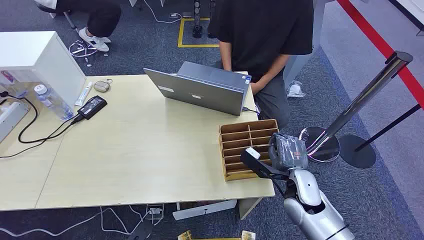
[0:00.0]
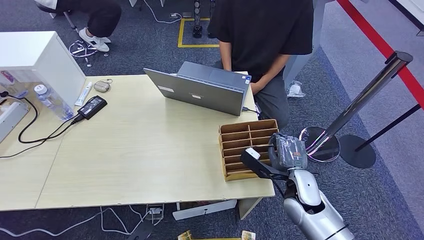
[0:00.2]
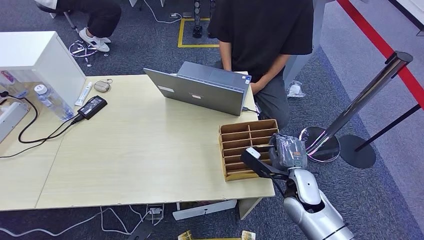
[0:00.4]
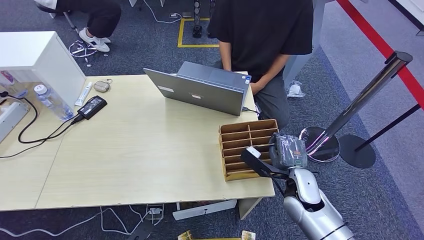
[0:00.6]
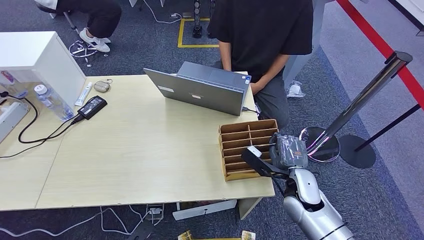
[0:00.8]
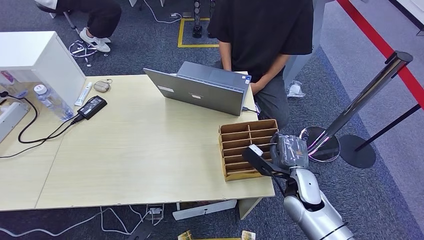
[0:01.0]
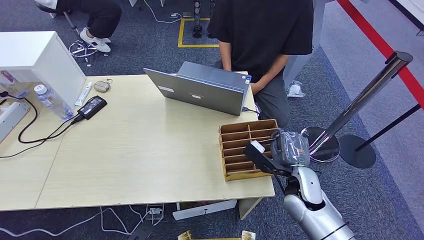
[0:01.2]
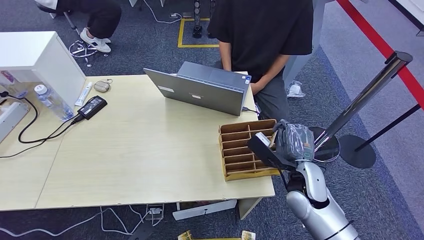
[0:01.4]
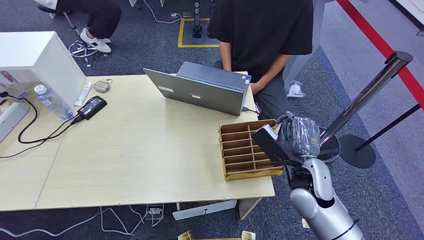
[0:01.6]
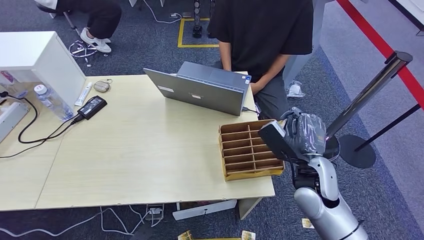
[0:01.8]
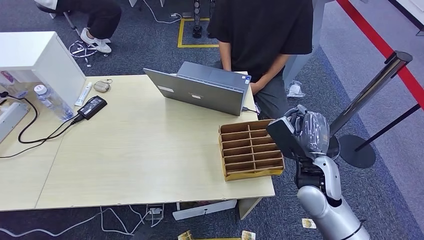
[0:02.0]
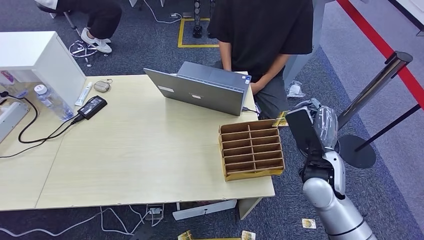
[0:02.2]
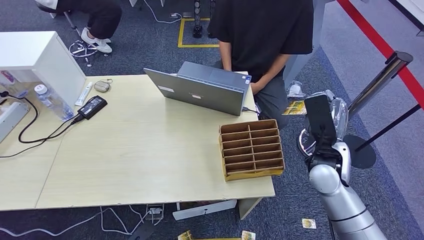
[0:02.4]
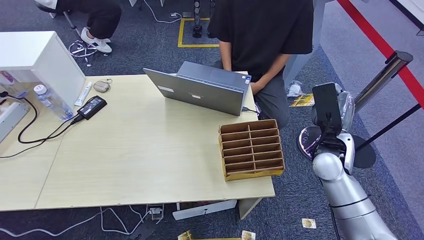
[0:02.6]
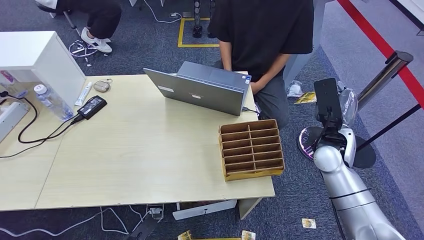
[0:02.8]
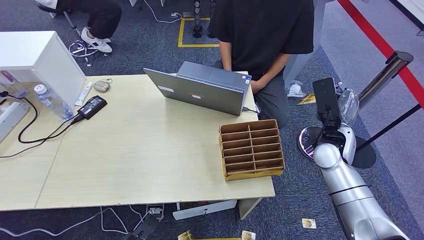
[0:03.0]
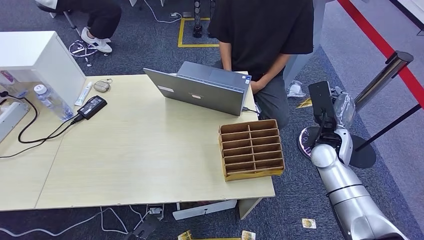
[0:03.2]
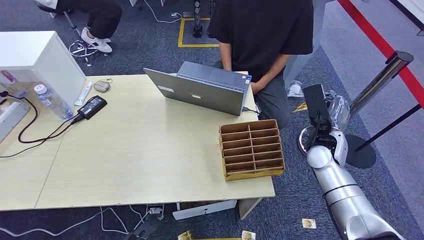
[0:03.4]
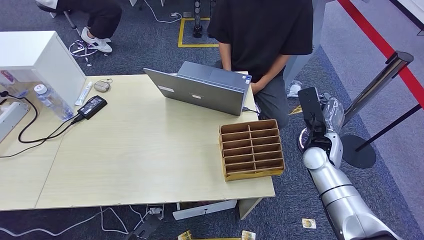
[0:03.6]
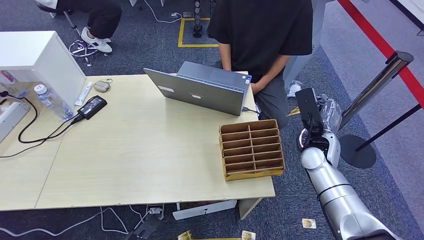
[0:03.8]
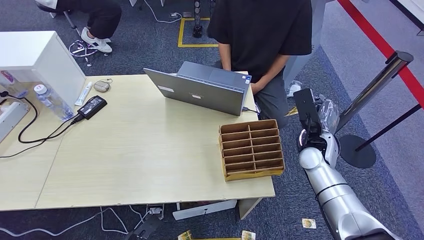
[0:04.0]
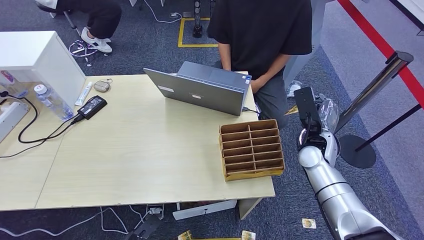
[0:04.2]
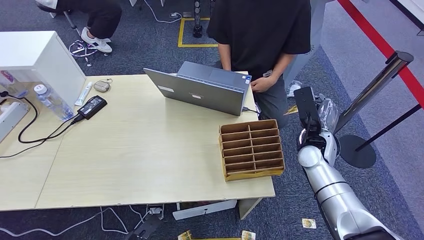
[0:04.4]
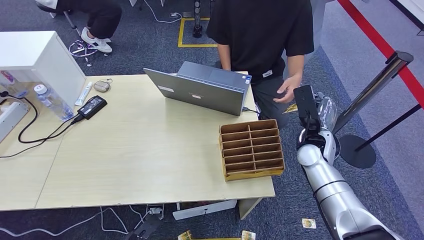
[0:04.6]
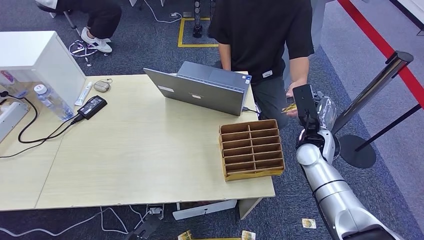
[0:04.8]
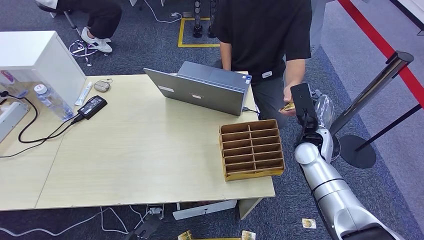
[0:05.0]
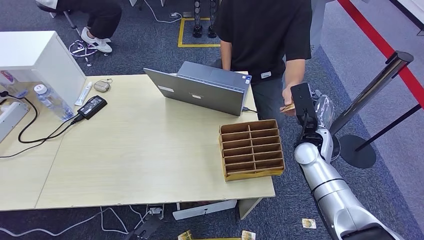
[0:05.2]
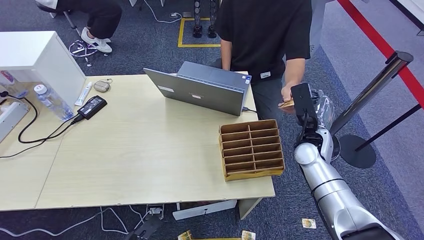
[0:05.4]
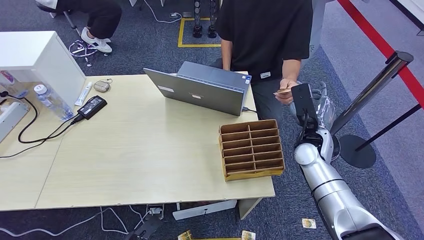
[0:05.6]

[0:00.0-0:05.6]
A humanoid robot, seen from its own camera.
Step, 0:00.0 to 0:03.0: Pick up the key card from the card box.
Step, 0:03.2 to 0:05.6: Hand the key card to the target.
0:01.4 to 0:02.8: The right hand goes about 10 cm forward, to the right and upward.
0:02.8 to 0:04.2: The right hand goes roughly 5 cm downward.
0:04.2 to 0:05.6: The hands move only a little.

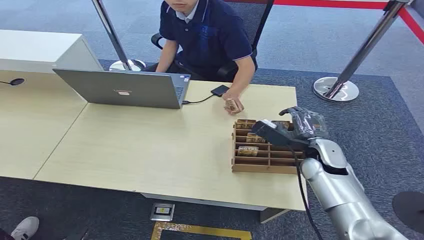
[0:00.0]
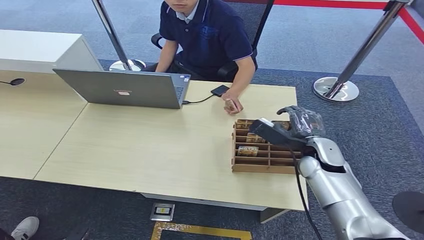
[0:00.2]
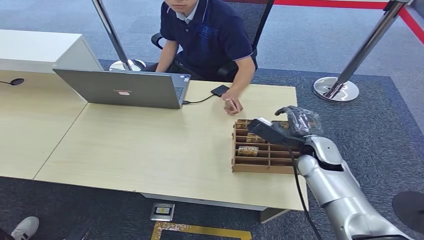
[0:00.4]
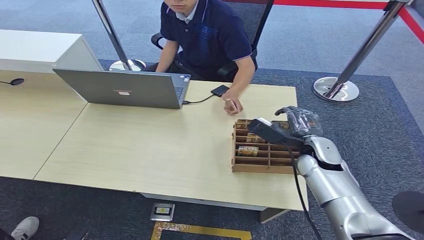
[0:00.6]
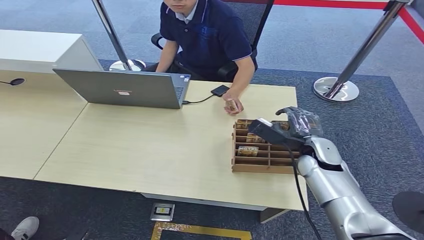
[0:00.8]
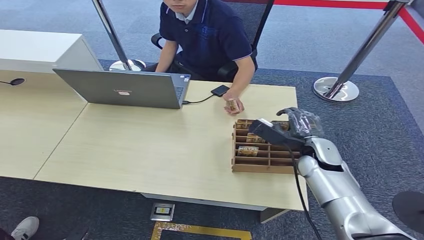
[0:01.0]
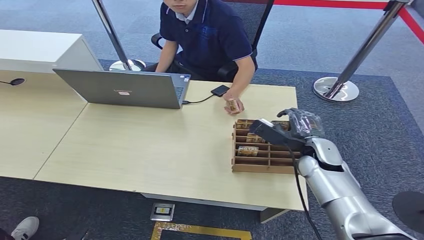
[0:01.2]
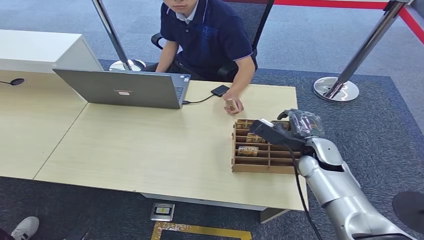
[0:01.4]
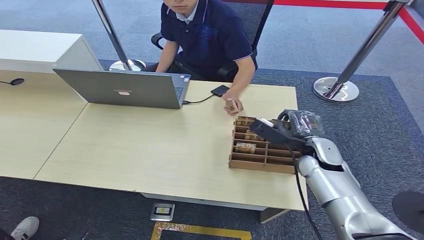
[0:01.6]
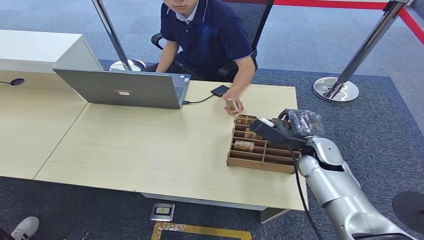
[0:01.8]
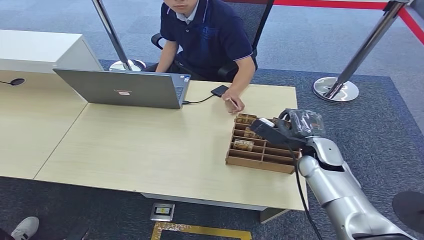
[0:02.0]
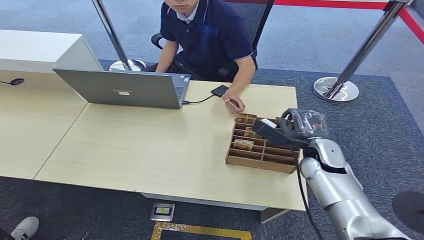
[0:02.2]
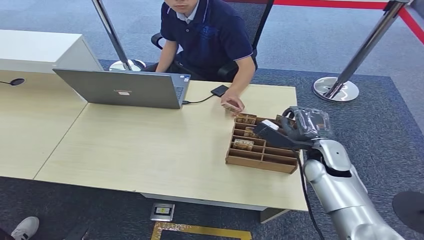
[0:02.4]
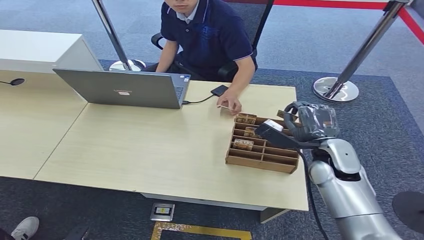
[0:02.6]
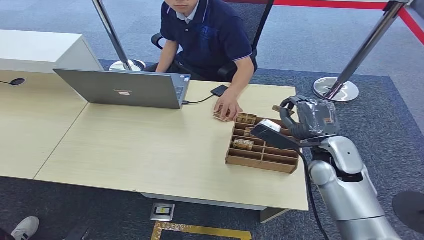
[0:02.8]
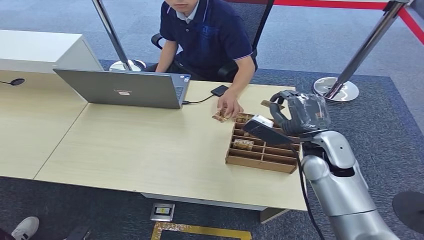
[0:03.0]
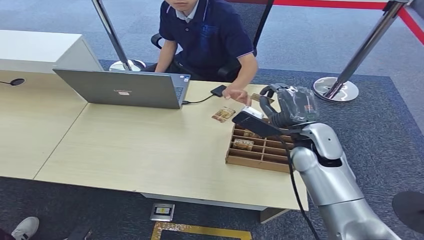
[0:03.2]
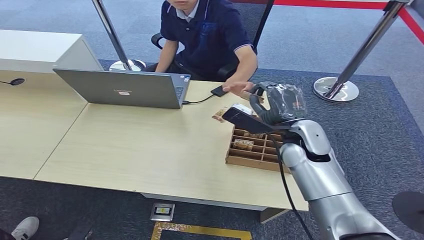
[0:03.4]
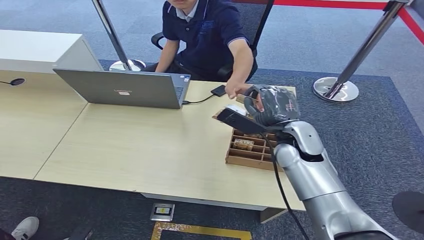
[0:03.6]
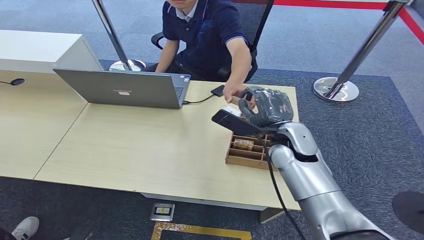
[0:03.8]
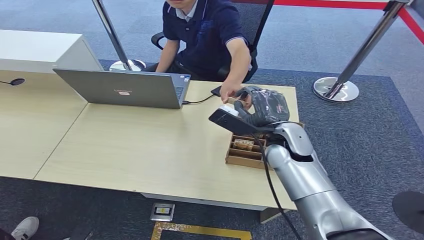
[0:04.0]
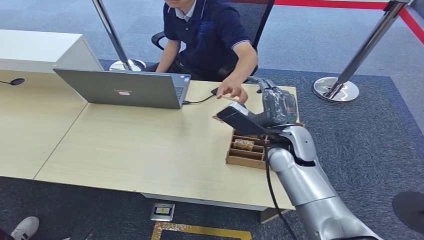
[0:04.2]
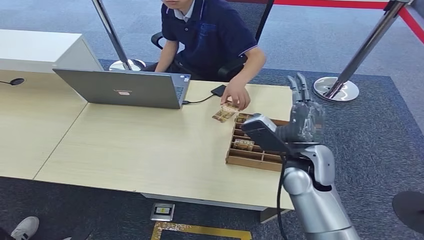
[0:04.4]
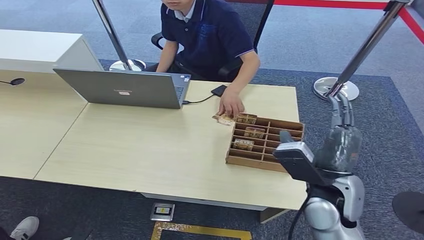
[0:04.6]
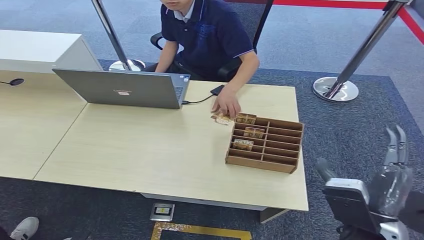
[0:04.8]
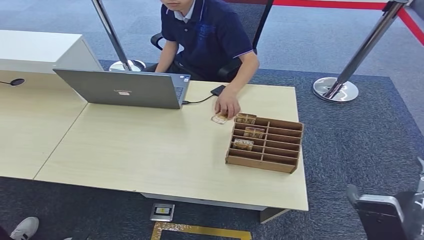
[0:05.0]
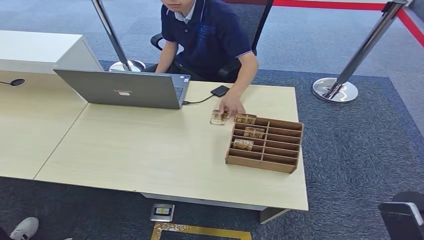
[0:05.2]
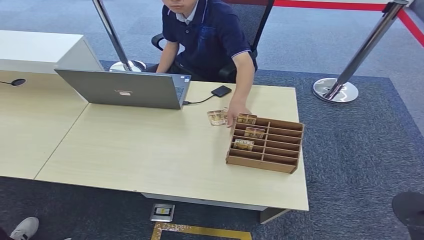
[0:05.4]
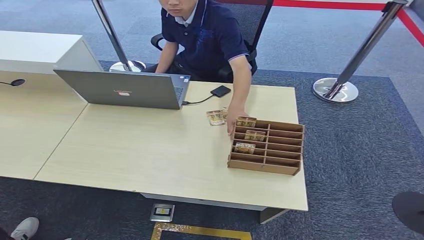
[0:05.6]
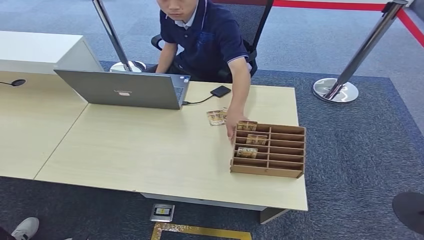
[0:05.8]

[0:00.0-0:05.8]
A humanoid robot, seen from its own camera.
Step, 0:00.0 to 0:02.8: Pick up the key card from the card box.
Step, 0:03.2 to 0:05.8: Hand the key card to the target.
0:01.4 to 0:02.8: The right hand moves upward, some 5 cm.
0:02.8 to 0:04.4: The right hand travels to the left by some 10 cm.
0:04.4 to 0:05.8: The right hand shifts approximately 40 cm backward, downward and to the right.
